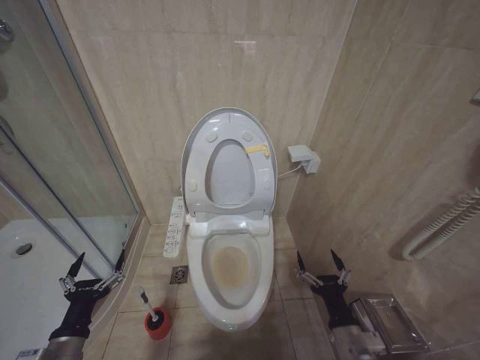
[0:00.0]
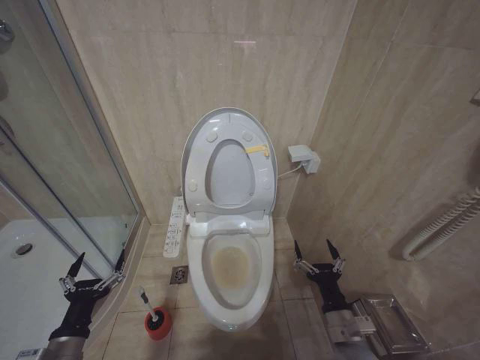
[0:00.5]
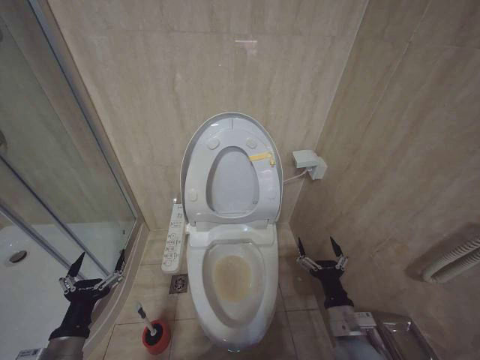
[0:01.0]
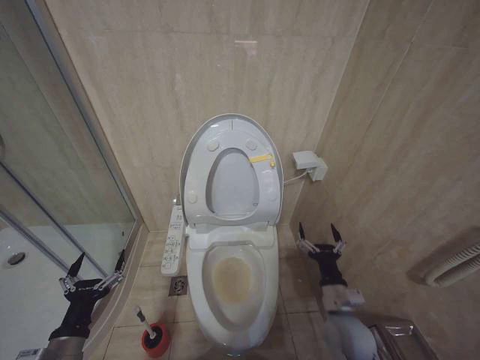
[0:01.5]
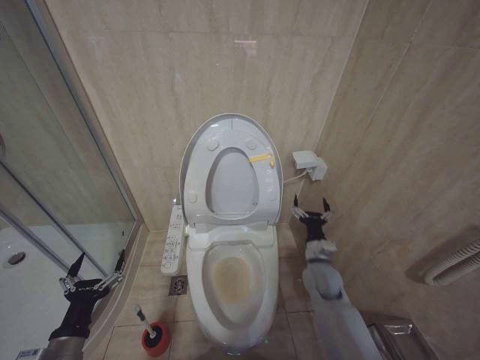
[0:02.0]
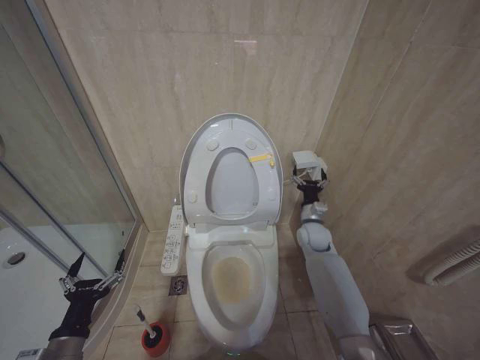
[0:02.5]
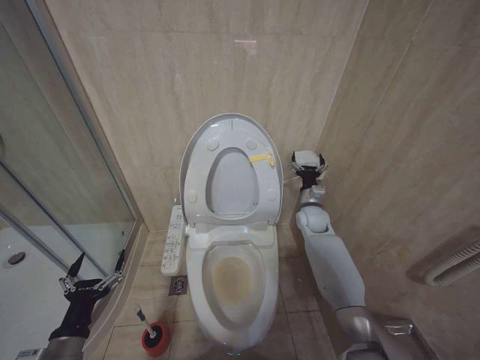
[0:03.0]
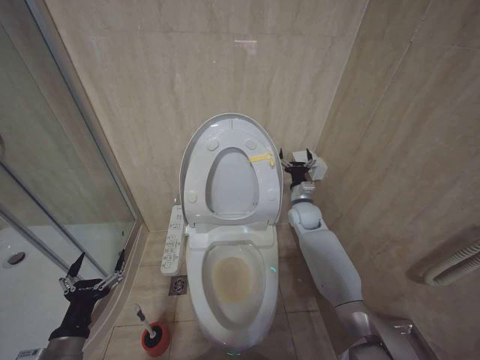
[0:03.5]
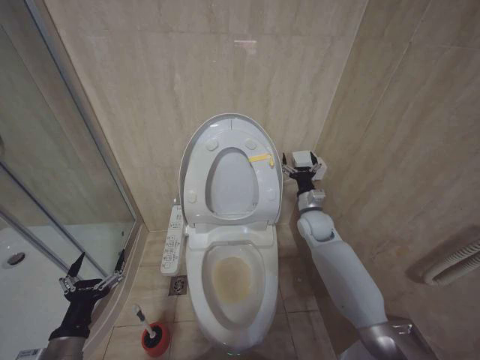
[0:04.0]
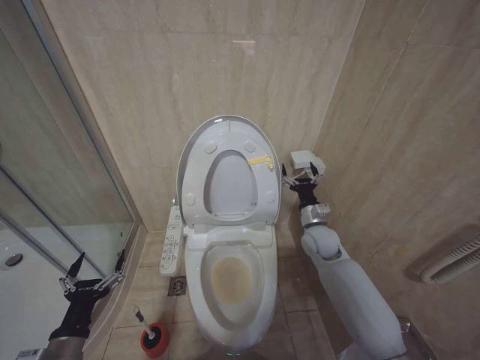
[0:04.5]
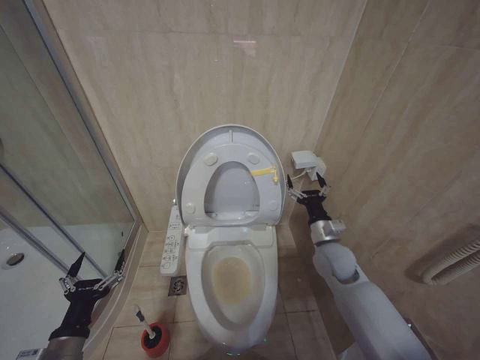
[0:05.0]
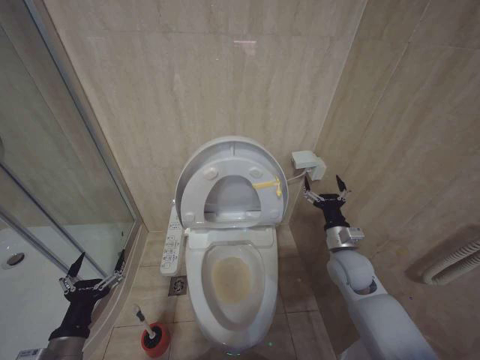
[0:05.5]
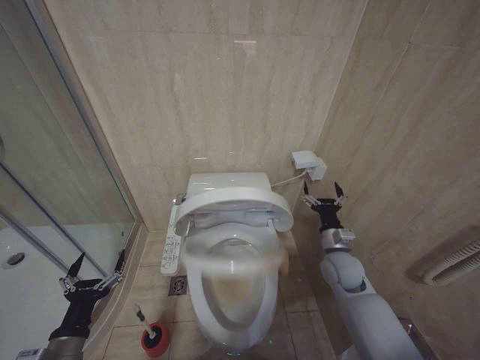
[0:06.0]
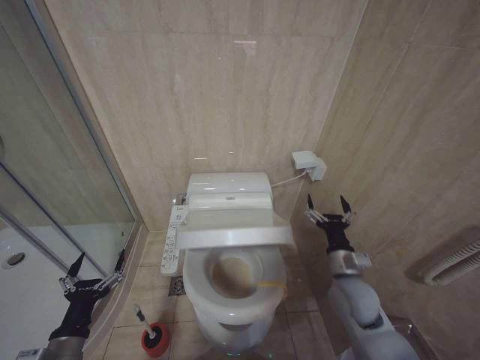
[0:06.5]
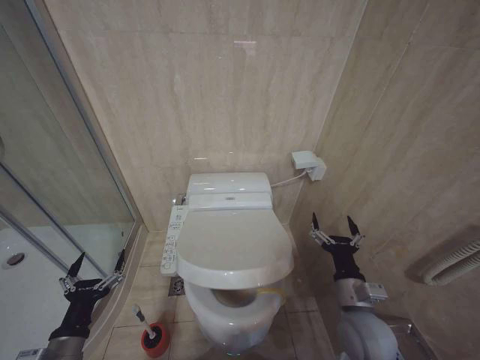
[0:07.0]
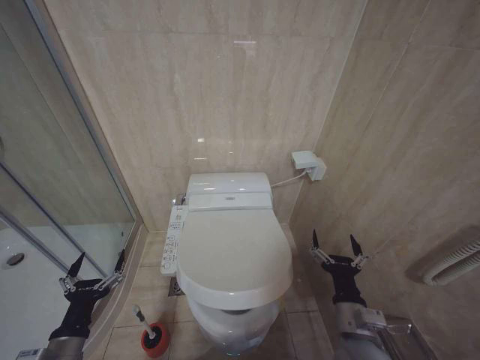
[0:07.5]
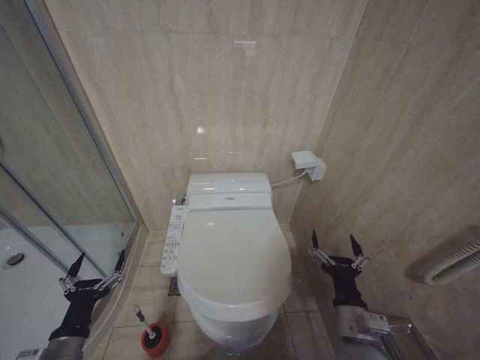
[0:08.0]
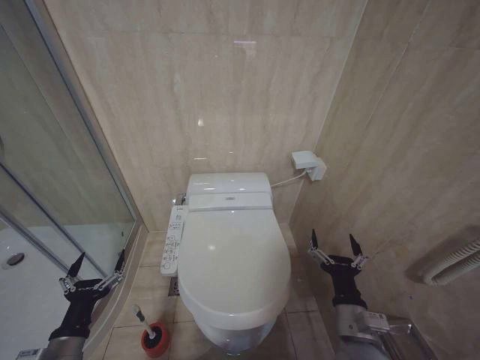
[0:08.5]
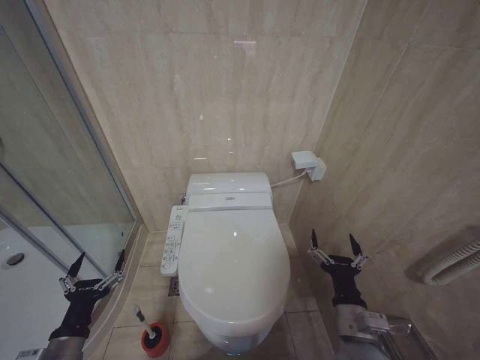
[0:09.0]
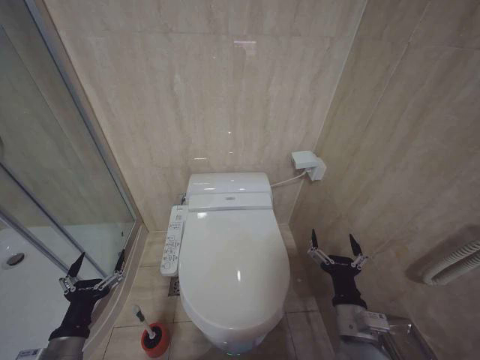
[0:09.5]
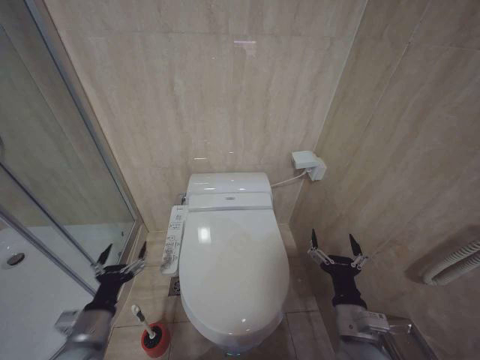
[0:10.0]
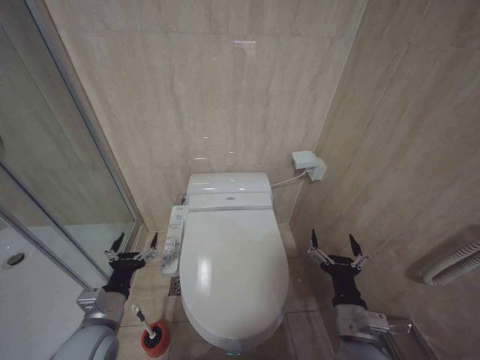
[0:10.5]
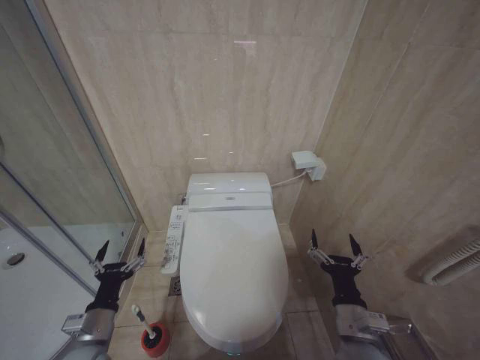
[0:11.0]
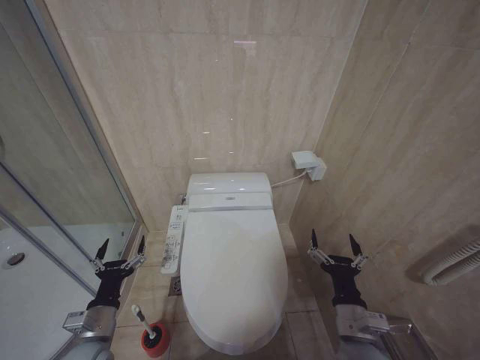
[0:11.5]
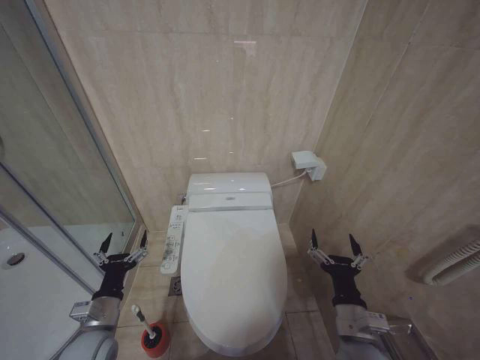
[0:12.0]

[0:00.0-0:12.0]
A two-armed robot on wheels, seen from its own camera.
Task of the whole recording: Open the toilet lid, clean the toilet bowl with a toilet brush, close the toilet lid, and flush.
0:00.0 to 0:02.0: The right gripper goes some 20 cm forward.
0:02.0 to 0:04.0: The right gripper heads forward and upward, covering roughly 15 cm.
0:04.0 to 0:06.0: The right gripper travels backward by roughly 10 cm.
0:06.0 to 0:08.0: The right gripper shifts approximately 20 cm backward.
0:08.0 to 0:10.0: The grippers move only a little.
0:10.0 to 0:12.0: The left gripper shifts by some 5 cm.

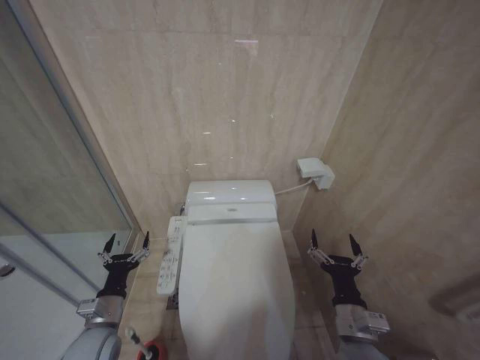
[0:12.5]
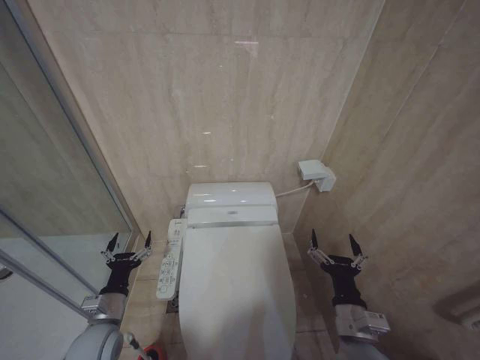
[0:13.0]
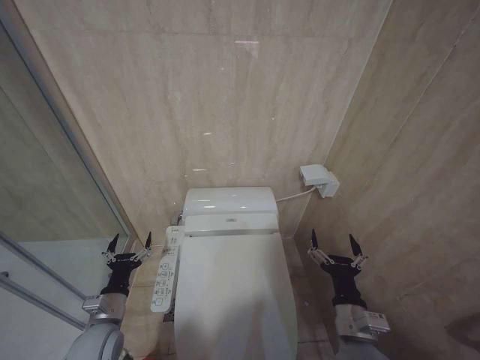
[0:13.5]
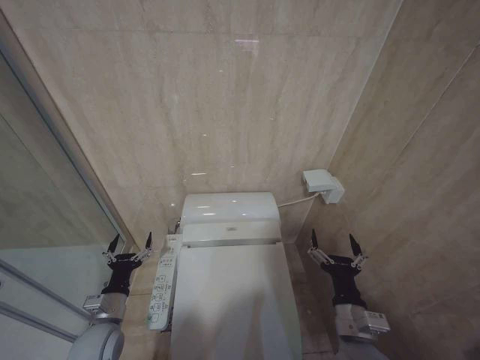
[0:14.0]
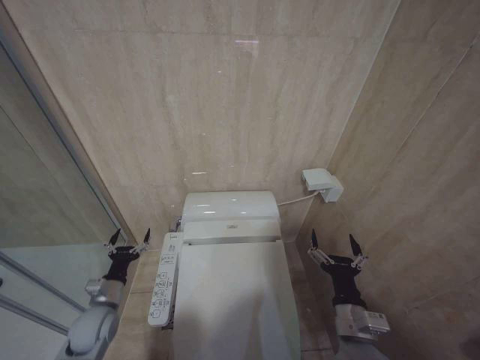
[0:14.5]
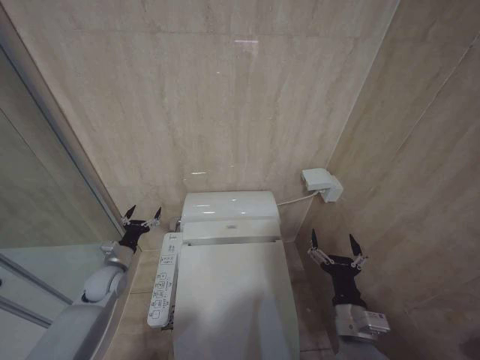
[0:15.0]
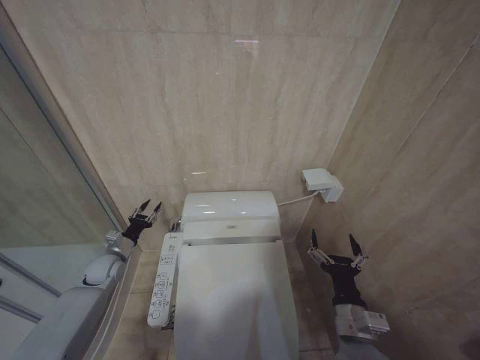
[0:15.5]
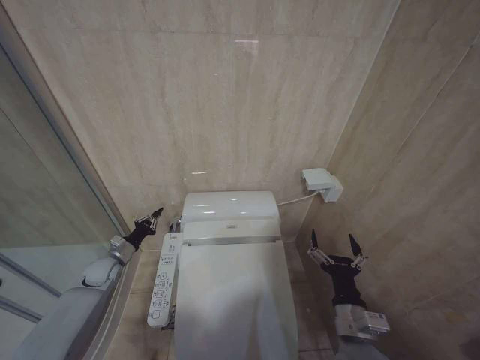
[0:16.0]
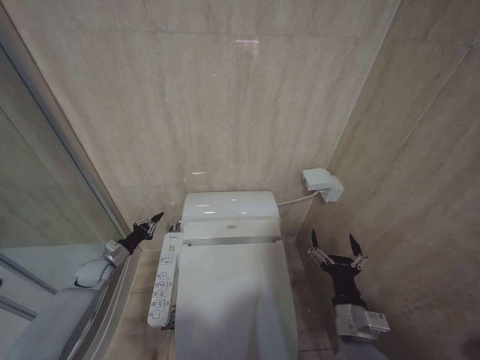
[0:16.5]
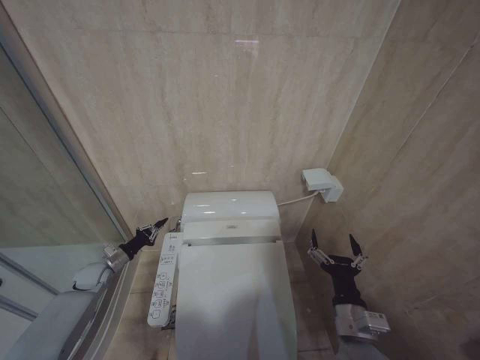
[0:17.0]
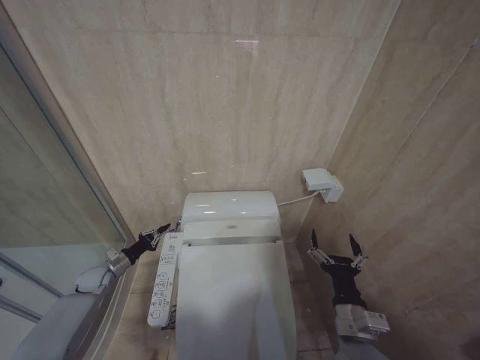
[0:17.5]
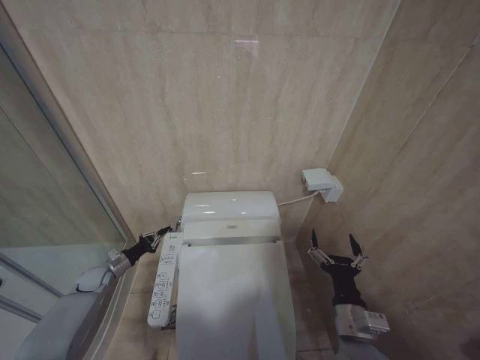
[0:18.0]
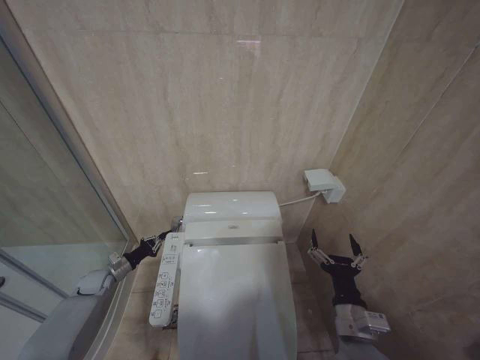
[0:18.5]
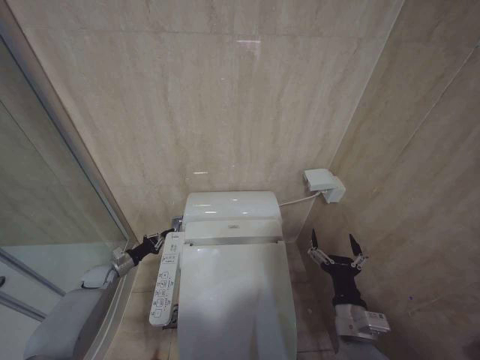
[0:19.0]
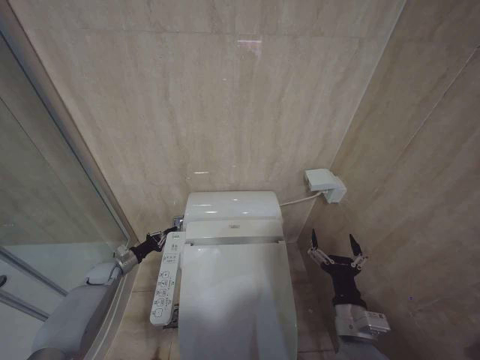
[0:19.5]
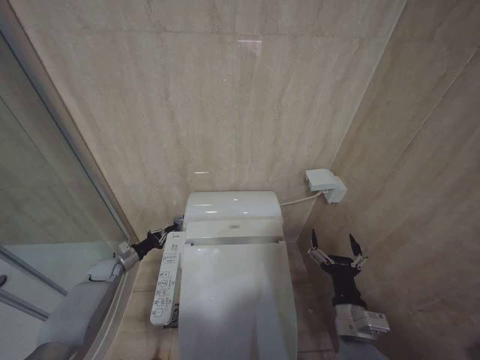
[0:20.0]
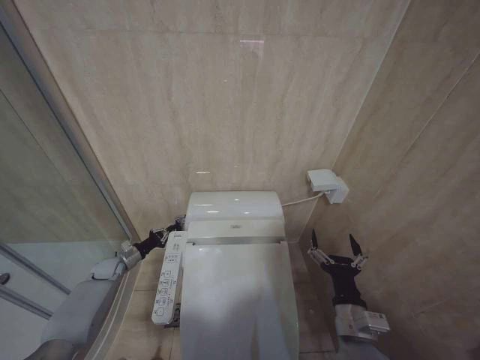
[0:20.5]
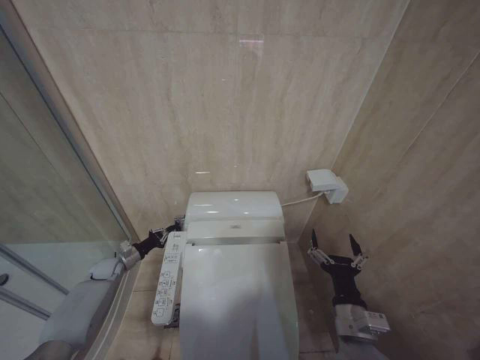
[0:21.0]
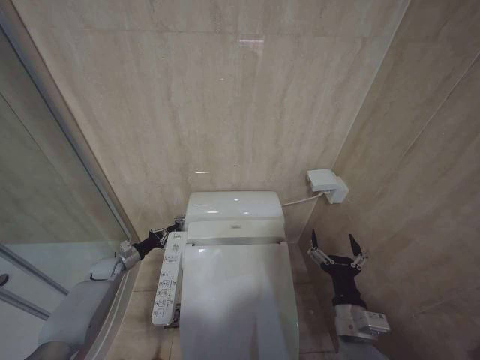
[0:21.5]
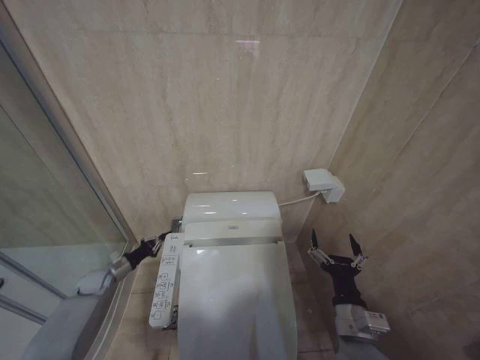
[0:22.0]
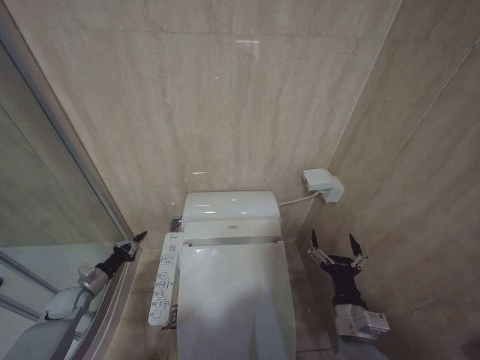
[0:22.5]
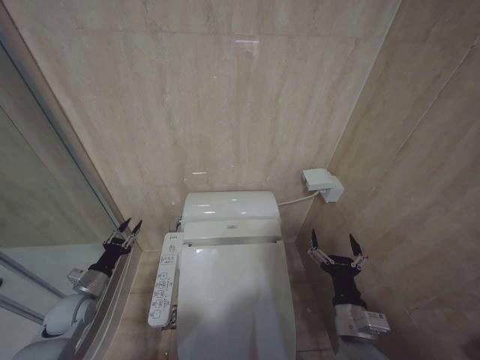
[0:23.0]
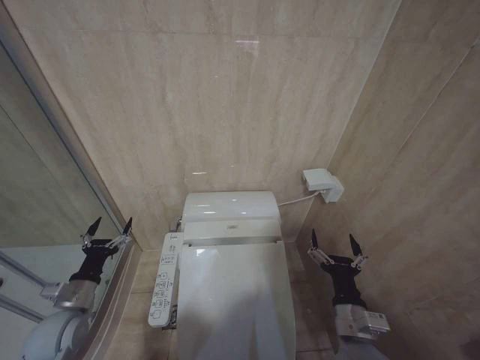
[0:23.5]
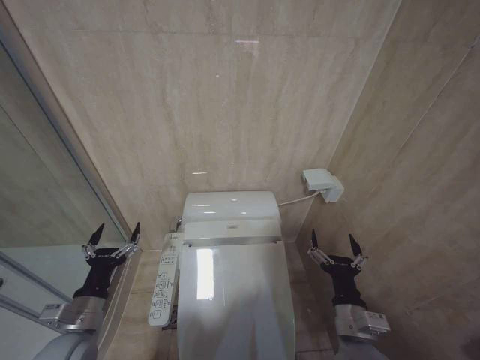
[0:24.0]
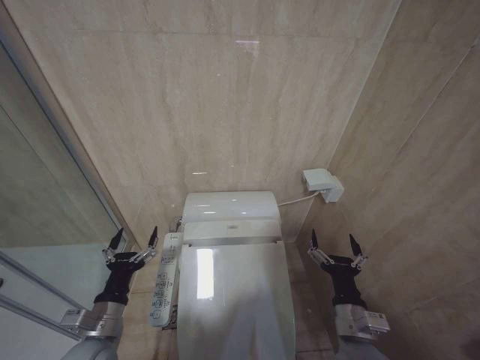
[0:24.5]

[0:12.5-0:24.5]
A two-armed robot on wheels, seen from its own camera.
Task of the whole recording: Open the toilet lid, clean the toilet bowl with a toilet brush, close the toilet lid, and flush.
0:12.5 to 0:14.5: The left gripper shifts by approximately 5 cm.
0:14.5 to 0:16.5: The left gripper is displaced forward and to the left by roughly 20 cm, and closes up.
0:16.5 to 0:18.5: The left gripper changes place by approximately 5 cm.
0:18.5 to 0:20.5: The grippers stay close to where they were, moving slightly.
0:20.5 to 0:22.5: The left gripper is displaced backward and to the left by some 10 cm.
0:22.5 to 0:24.5: The left gripper is displaced to the right, backward and upward by roughly 30 cm, and opens up.

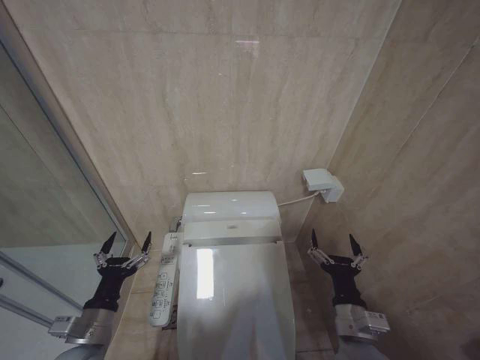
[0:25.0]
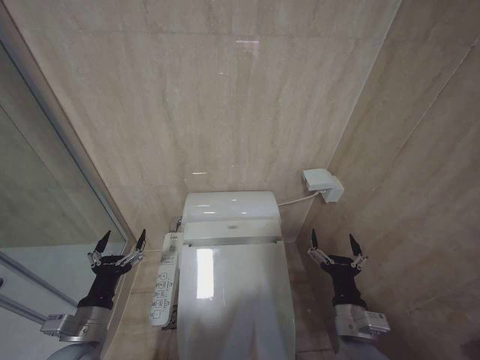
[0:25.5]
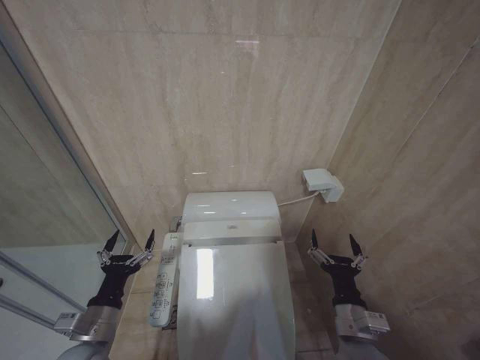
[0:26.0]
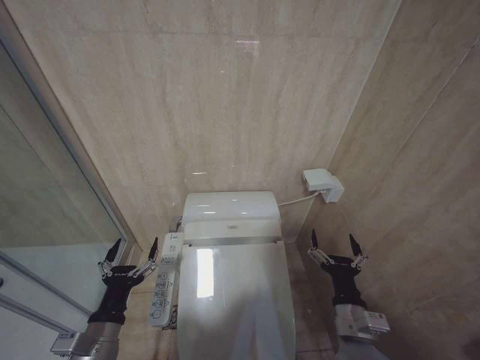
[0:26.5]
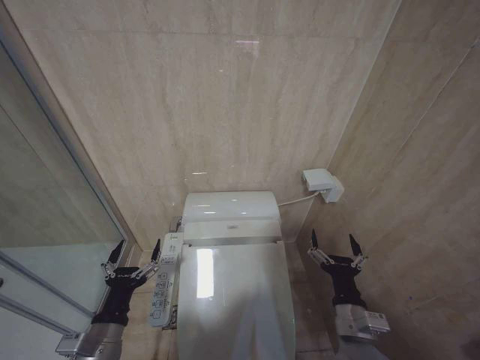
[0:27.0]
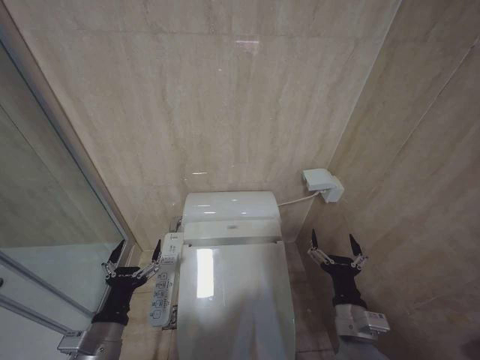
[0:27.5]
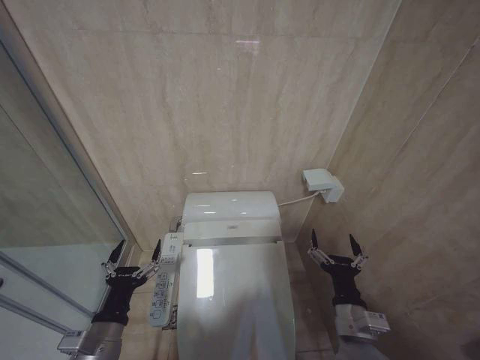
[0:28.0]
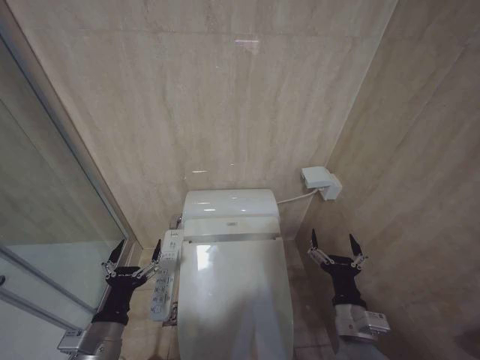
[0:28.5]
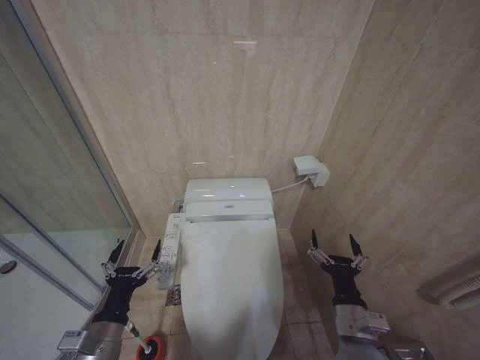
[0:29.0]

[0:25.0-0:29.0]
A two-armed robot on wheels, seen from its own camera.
Task of the whole recording: Open the toilet lid, clean the toilet bowl with a toilet brush, close the toilet lid, and flush.
0:25.0 to 0:27.0: The grippers stay close to where they were, moving slightly.
0:27.0 to 0:29.0: The two grippers keep their place.
